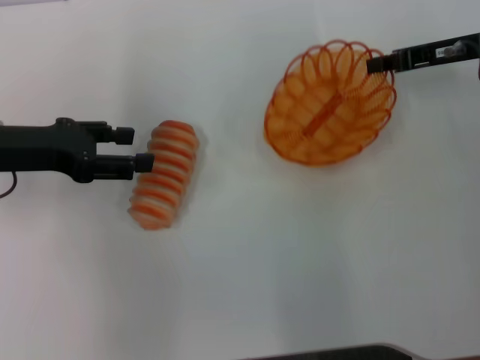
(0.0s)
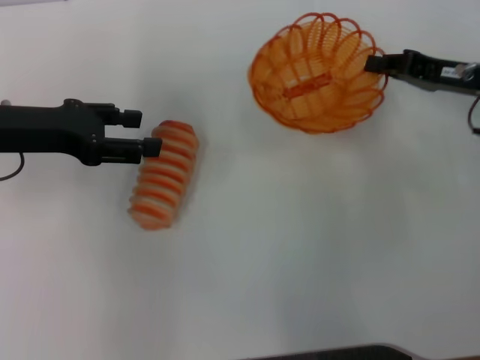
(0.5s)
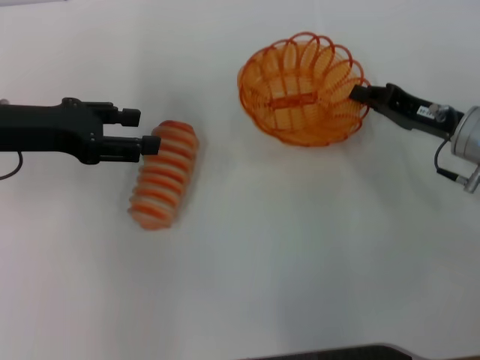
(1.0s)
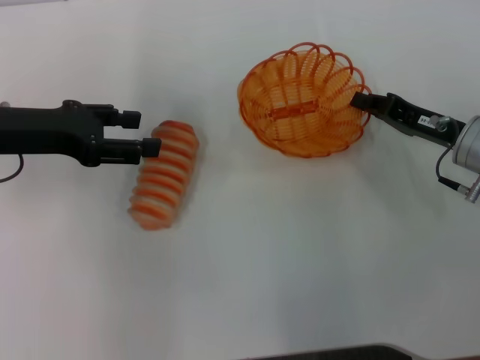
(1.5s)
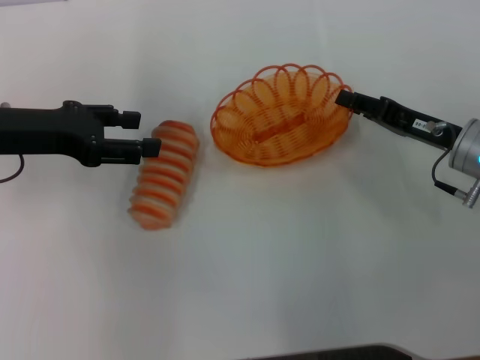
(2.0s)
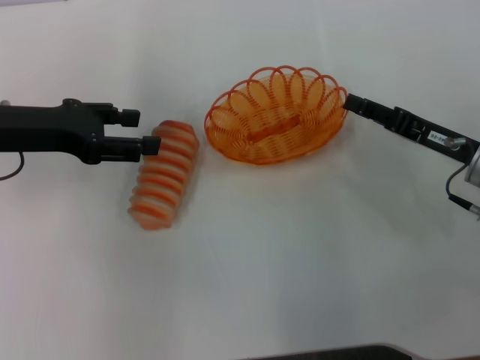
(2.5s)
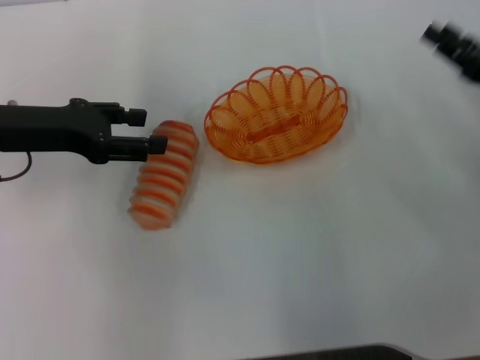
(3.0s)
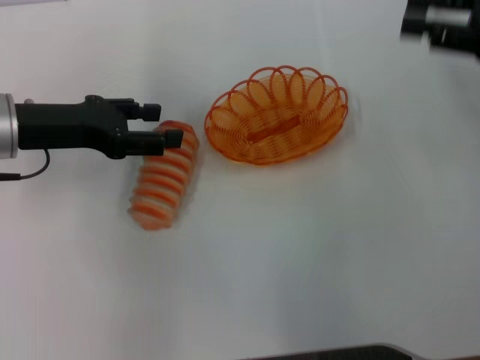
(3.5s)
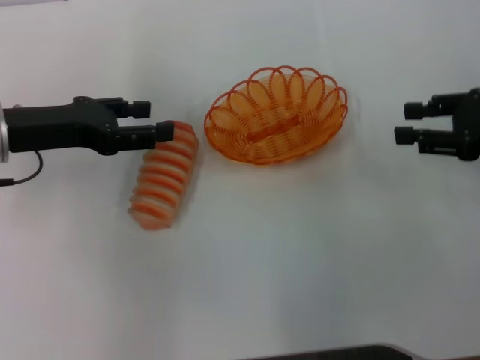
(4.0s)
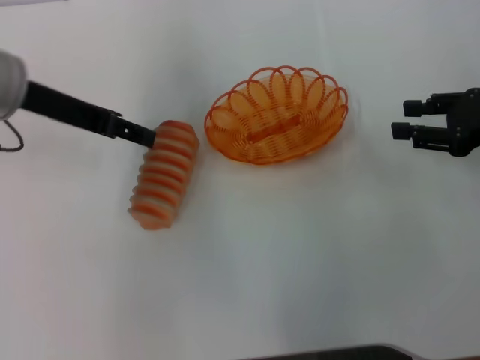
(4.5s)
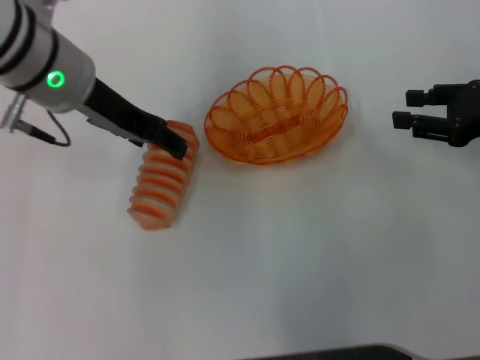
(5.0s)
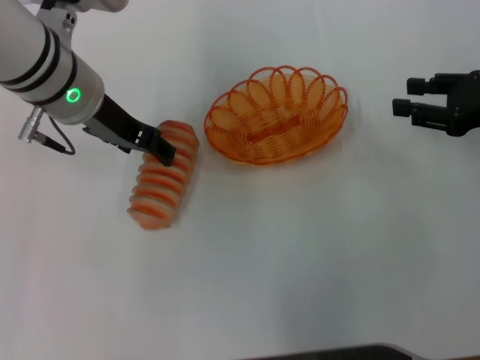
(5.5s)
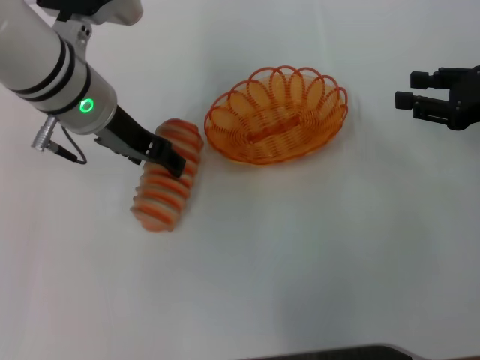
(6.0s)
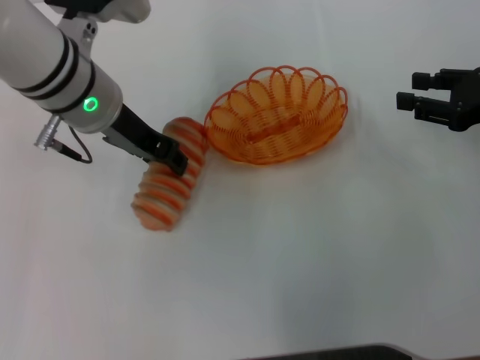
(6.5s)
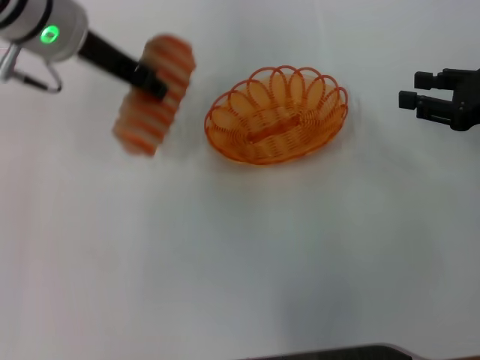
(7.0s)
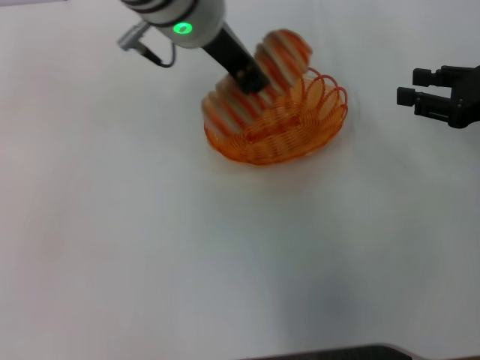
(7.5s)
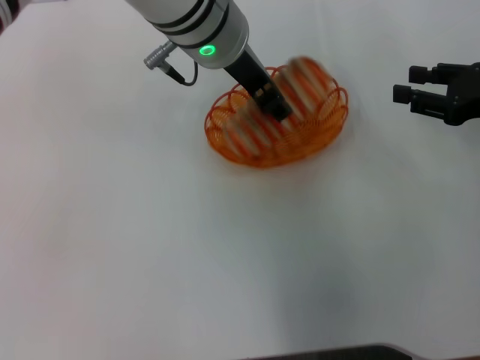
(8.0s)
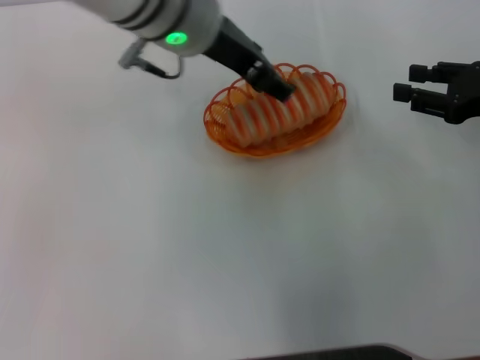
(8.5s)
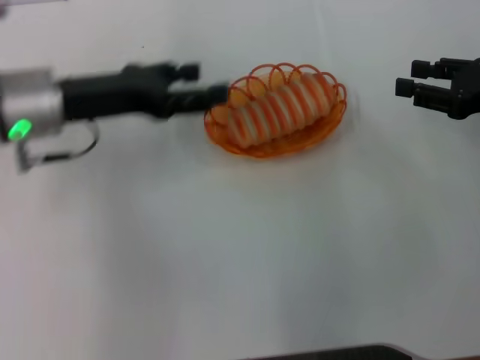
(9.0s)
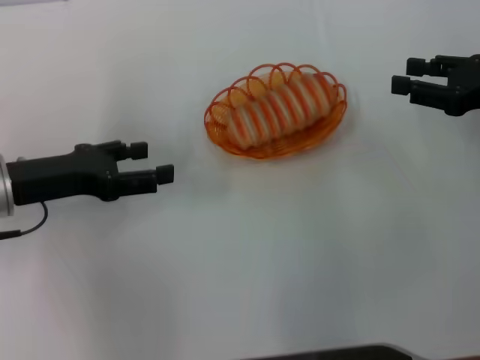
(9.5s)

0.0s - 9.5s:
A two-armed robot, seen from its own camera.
Step, 0.0s - 2.5s: Place the basket in the center of view with the right gripper.
Step, 3.0s - 6.5s: Pick up the long bread with the left gripper.
Step, 7.0s - 8.5s: Place the long bread into the basket with the left gripper.
0.0s - 2.0s: The right gripper moves backward and downward, roughly 15 cm.
2.0s - 4.0s: The right gripper heads upward and to the right, covering approximately 10 cm, and opens its fingers.
4.0s - 5.5s: The left gripper shifts about 10 cm to the right.
5.5s - 7.5s: The left gripper goes some 10 cm to the right and upward, and closes.
7.5s - 9.5s: The left gripper travels to the left, downward and backward by roughly 25 cm, and opens its fingers.
